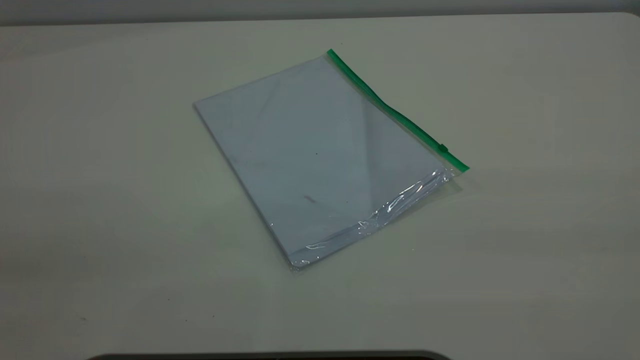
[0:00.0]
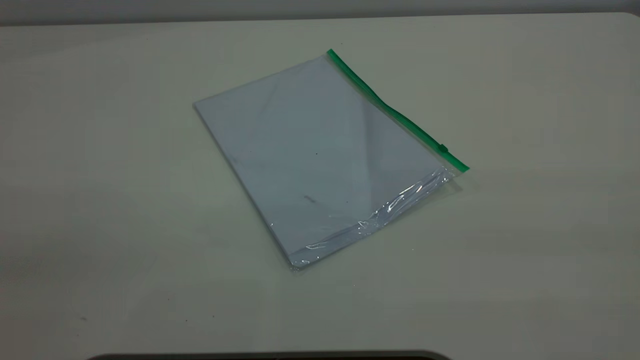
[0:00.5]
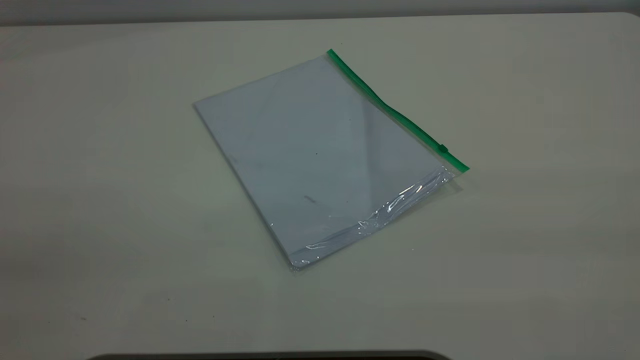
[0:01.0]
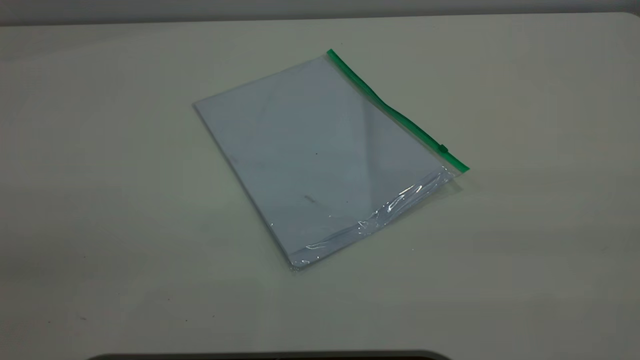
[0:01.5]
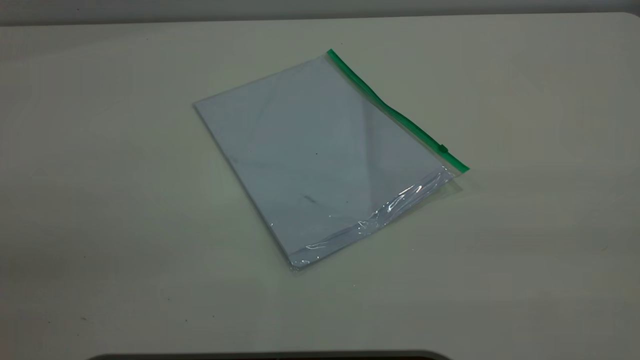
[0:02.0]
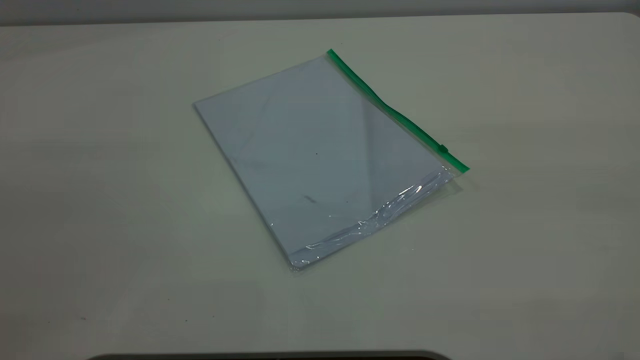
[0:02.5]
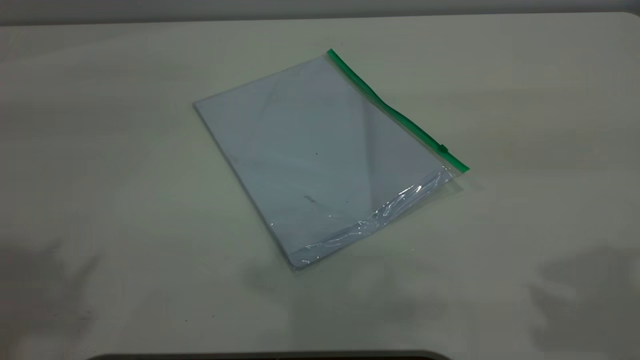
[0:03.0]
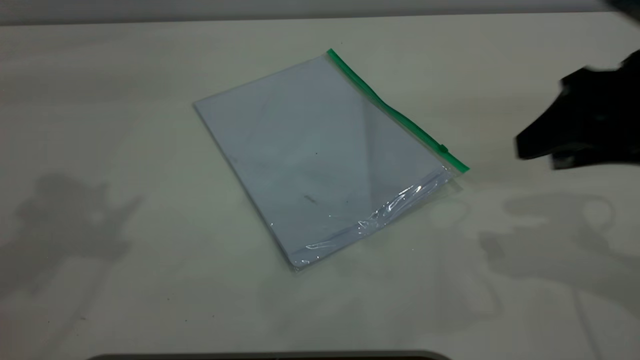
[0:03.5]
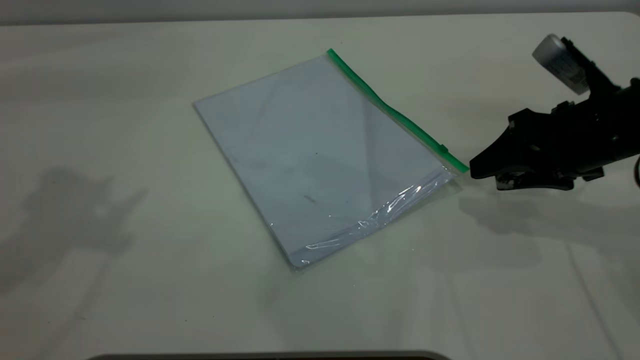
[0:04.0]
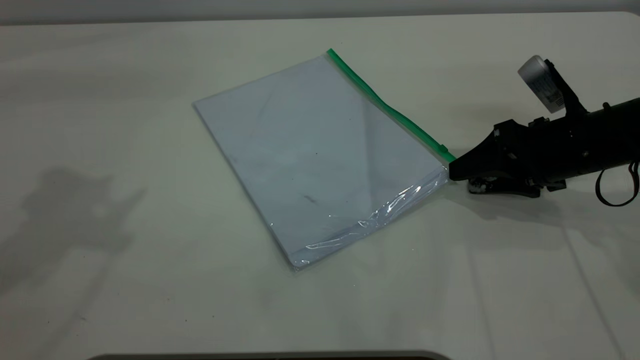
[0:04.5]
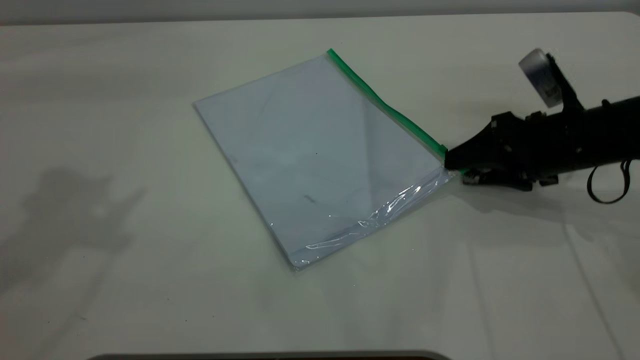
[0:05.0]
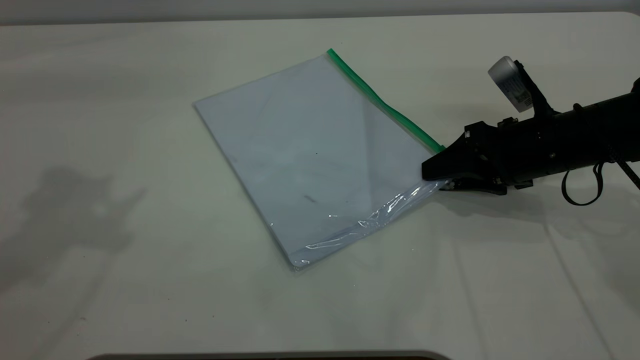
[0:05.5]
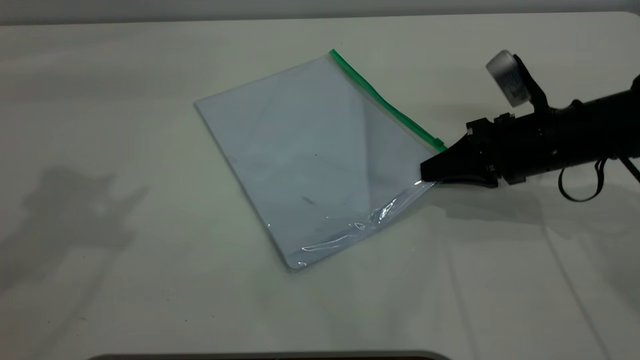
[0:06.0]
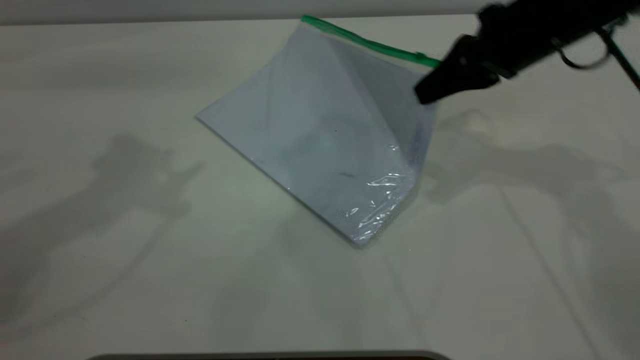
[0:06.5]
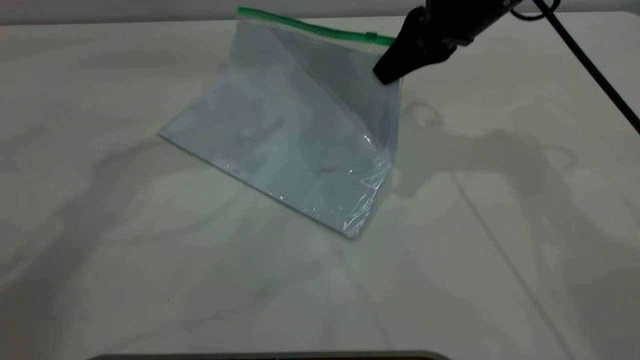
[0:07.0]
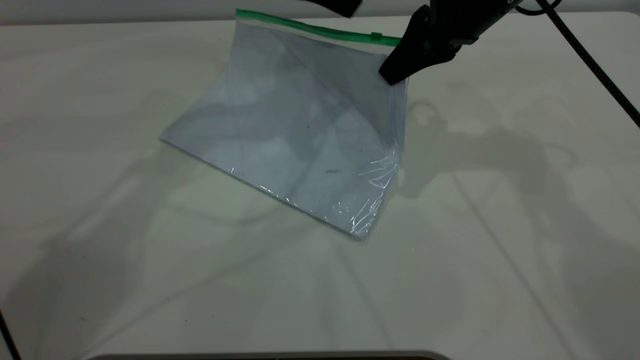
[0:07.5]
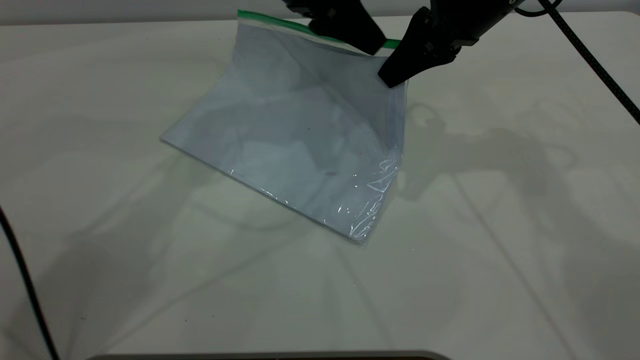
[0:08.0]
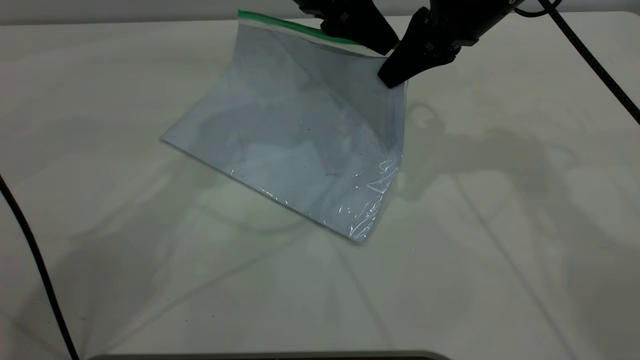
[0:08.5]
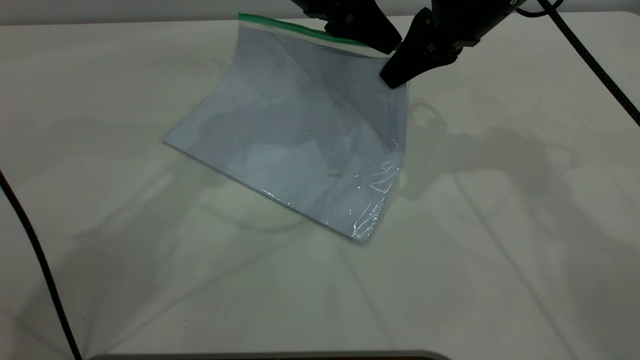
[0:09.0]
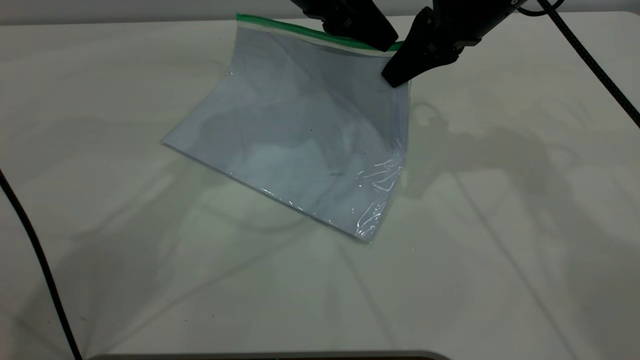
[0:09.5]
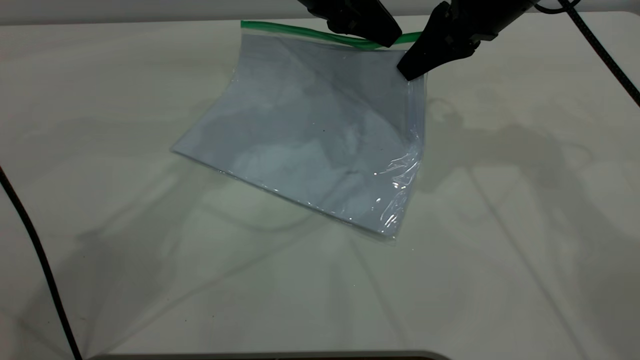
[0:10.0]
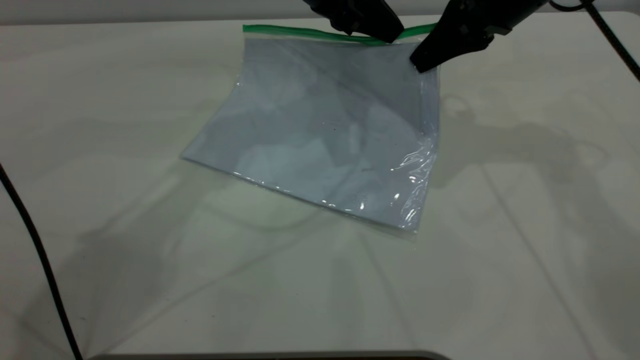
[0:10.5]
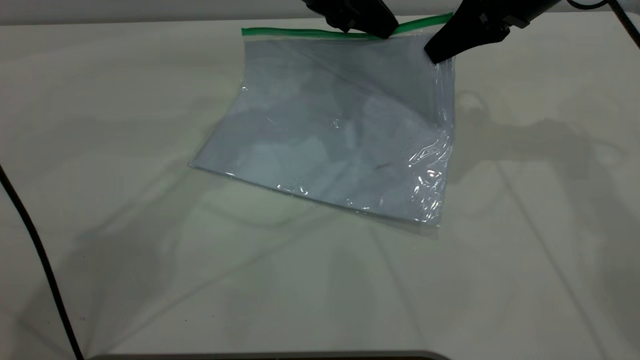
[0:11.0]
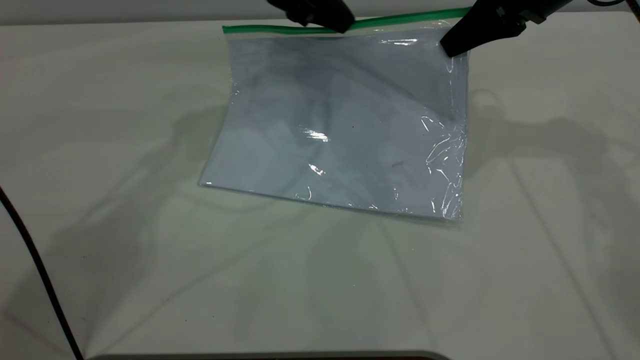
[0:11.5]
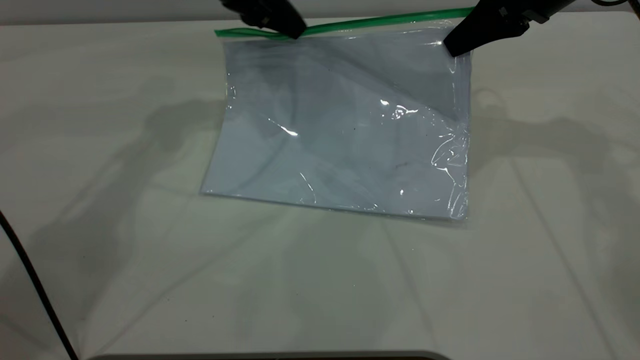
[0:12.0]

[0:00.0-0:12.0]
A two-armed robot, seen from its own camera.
Step, 0:00.0 to 0:06.0: Pick up the transparent plastic bag with the right gripper.
0:00.0 to 0:02.0: Both grippers stay put.
0:02.0 to 0:04.0: The right gripper shifts roughly 40 cm forward and downward.
0:04.0 to 0:06.0: The right gripper shifts by roughly 5 cm, and closes its fingers.
0:06.0 to 0:08.0: The right gripper is displaced upward, to the left and forward by some 15 cm, while the left gripper shifts approximately 30 cm to the right, forward and downward.
0:08.0 to 0:10.0: The left gripper closes its fingers.
0:10.0 to 0:12.0: The left gripper is displaced to the left by roughly 10 cm. Meanwhile the right gripper shifts some 5 cm to the right.

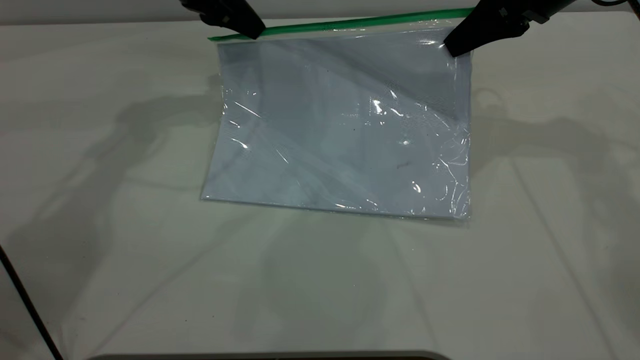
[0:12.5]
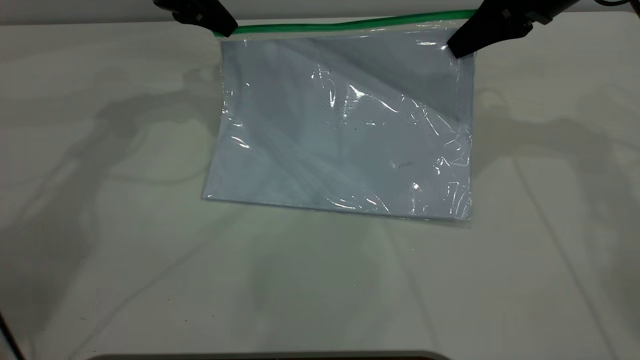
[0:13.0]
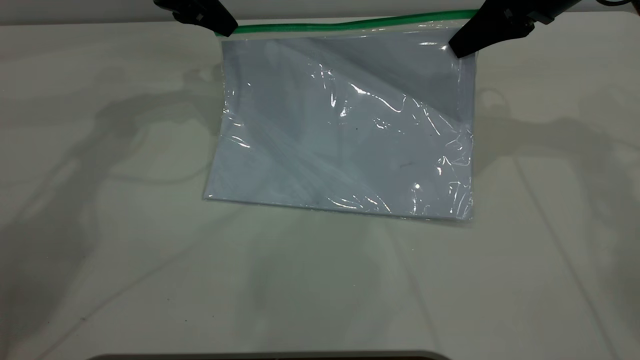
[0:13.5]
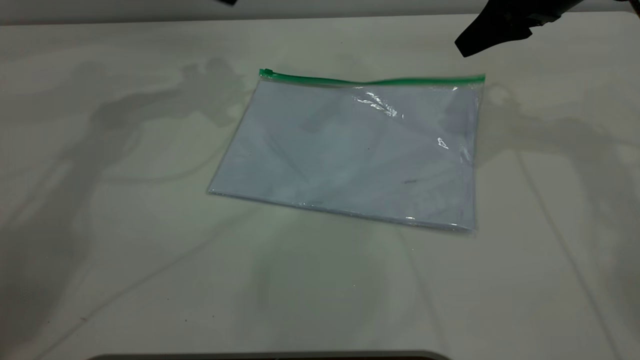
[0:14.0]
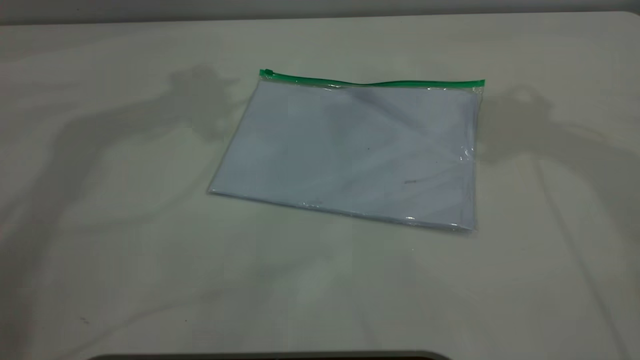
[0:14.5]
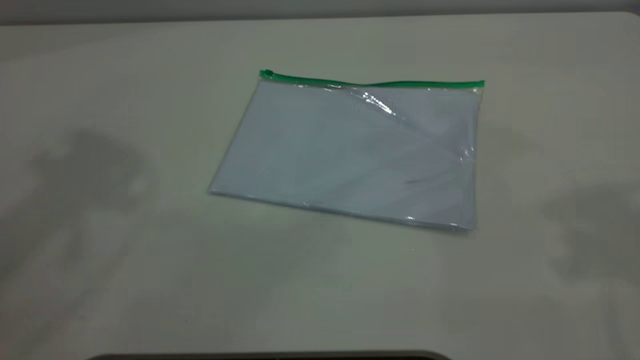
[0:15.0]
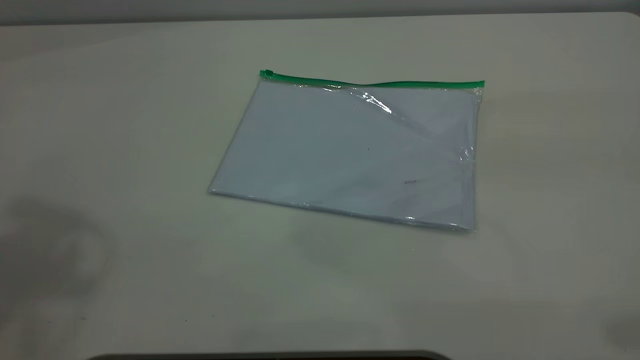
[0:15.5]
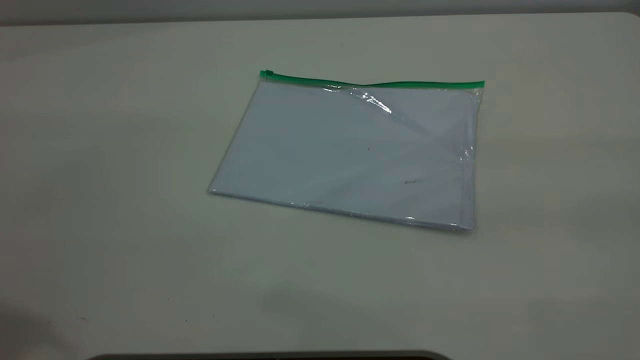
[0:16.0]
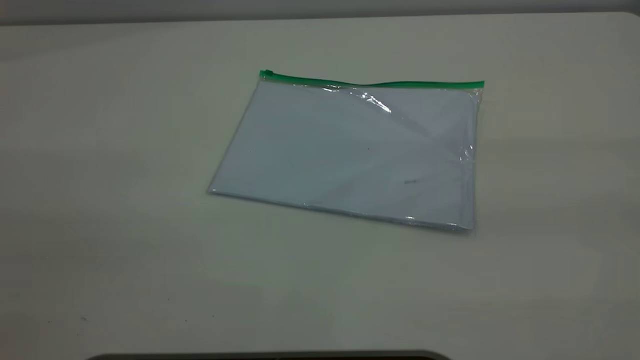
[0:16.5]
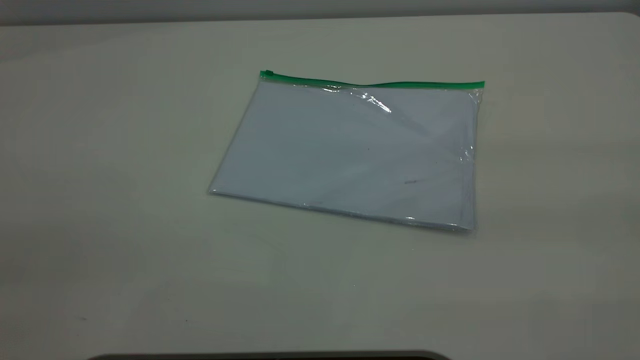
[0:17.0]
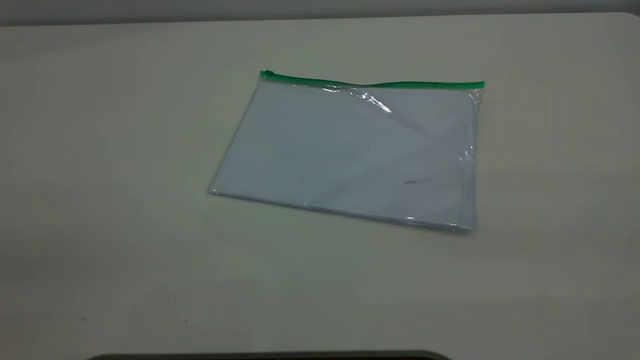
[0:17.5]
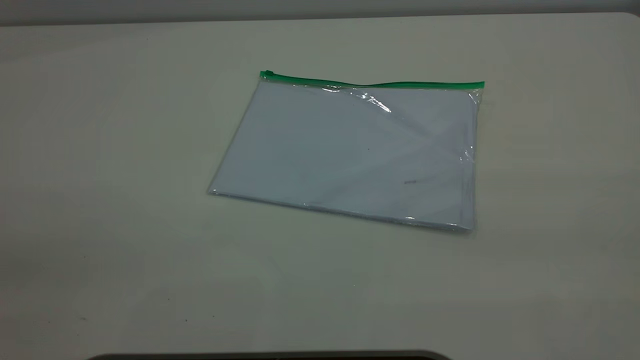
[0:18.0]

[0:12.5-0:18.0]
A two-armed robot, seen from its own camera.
0:12.5 to 0:14.5: The grippers both shift upward by roughly 20 cm. The right gripper opens; the left gripper opens.

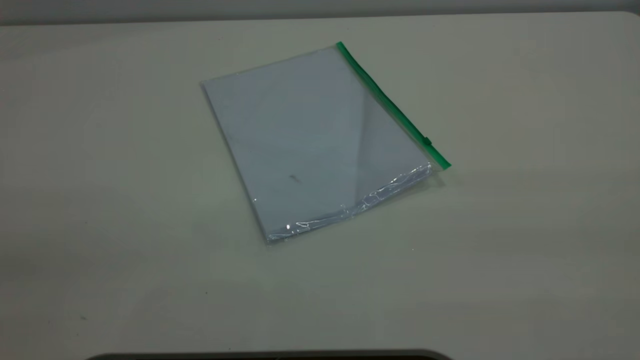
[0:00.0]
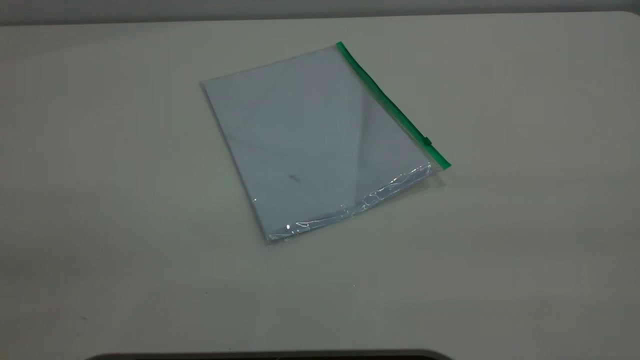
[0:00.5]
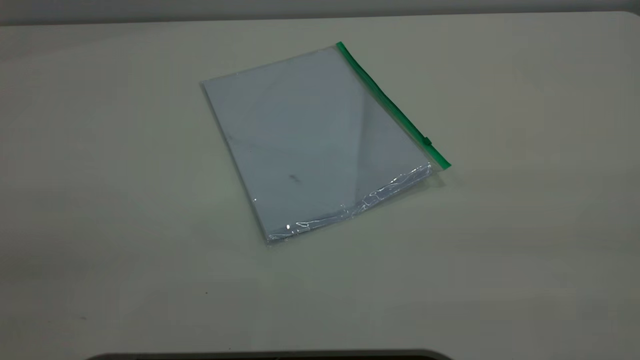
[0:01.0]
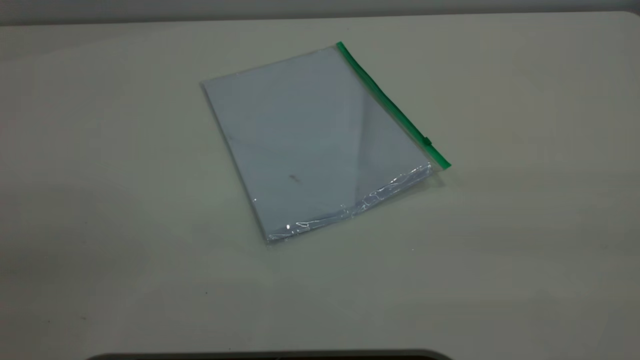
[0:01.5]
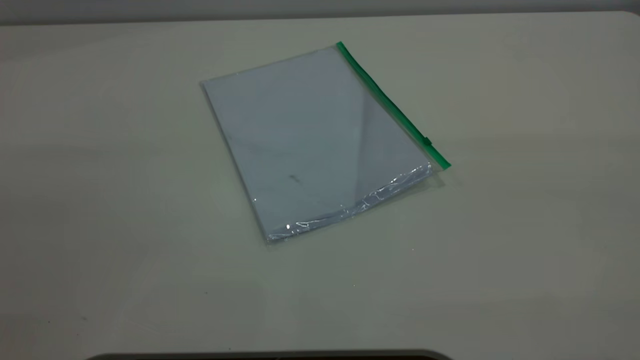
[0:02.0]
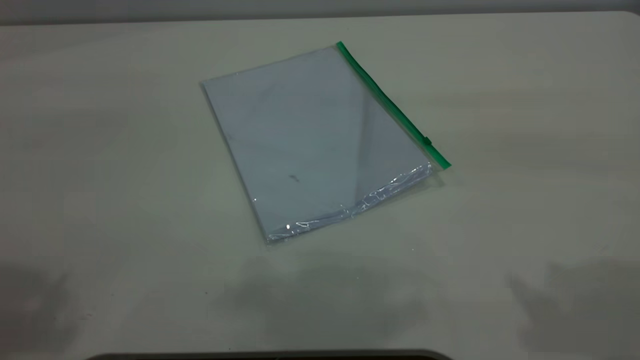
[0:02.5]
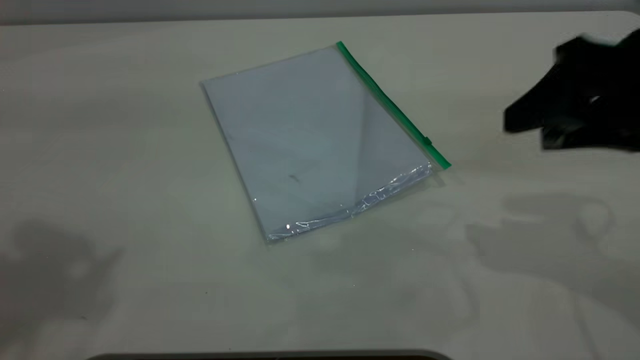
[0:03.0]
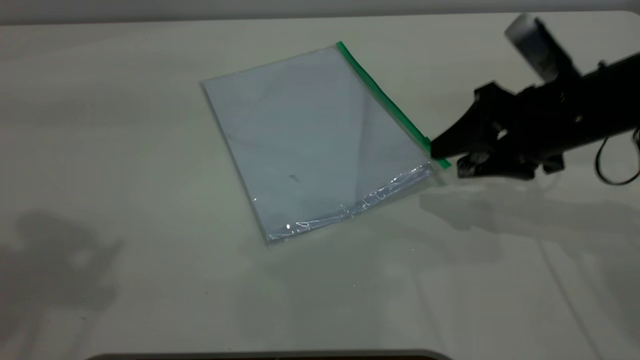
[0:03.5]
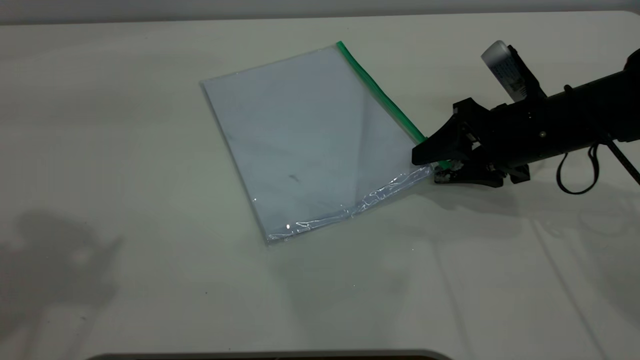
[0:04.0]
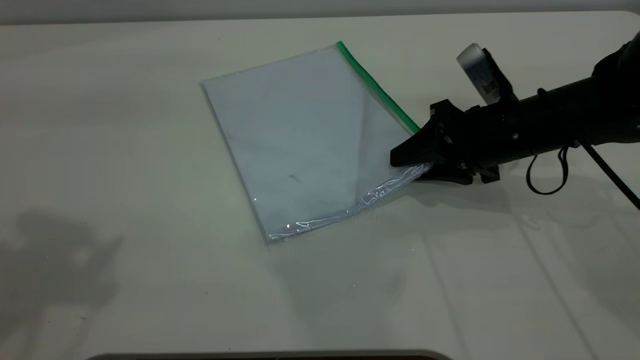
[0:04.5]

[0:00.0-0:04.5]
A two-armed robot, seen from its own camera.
0:02.0 to 0:04.5: The right gripper heads downward and forward, covering about 50 cm. Meanwhile the left gripper goes some 20 cm forward.
